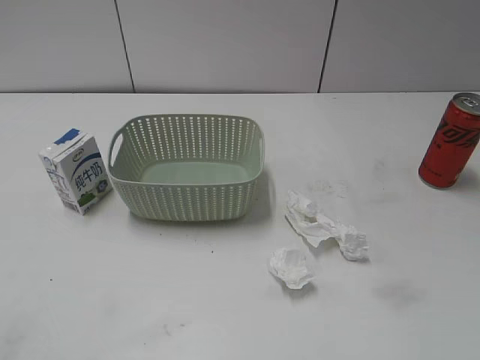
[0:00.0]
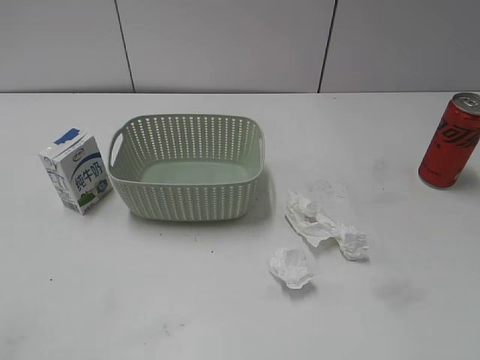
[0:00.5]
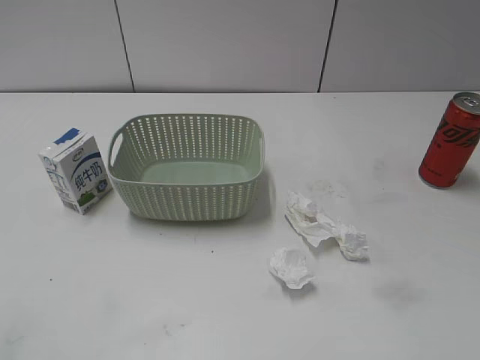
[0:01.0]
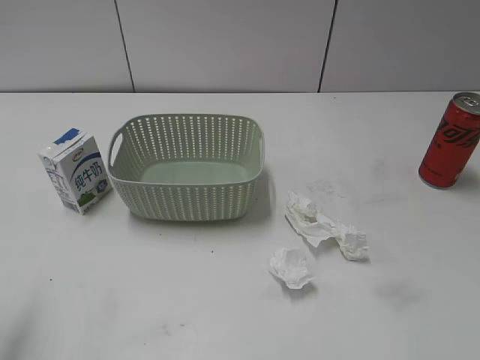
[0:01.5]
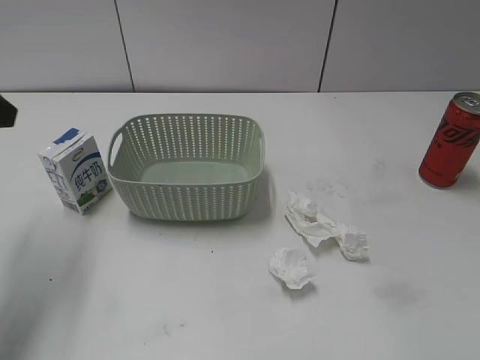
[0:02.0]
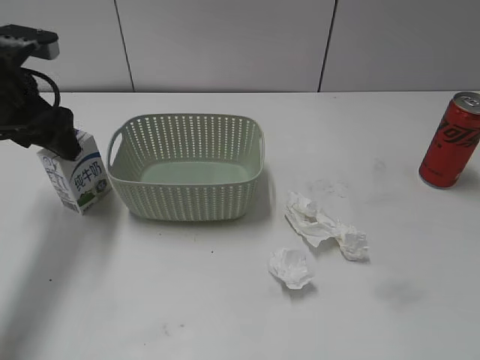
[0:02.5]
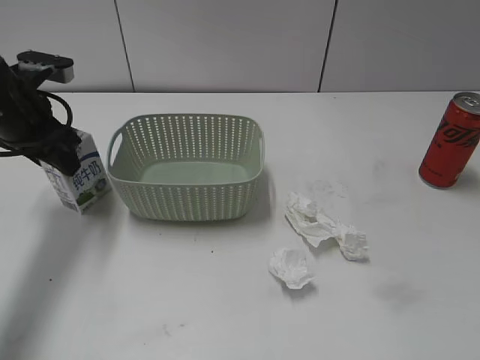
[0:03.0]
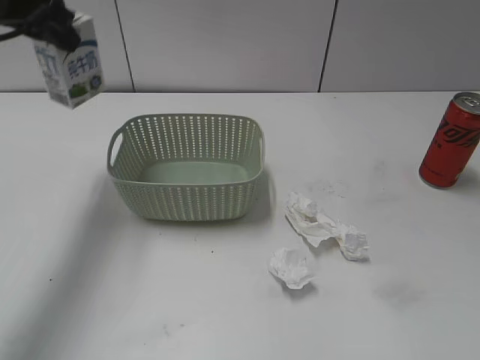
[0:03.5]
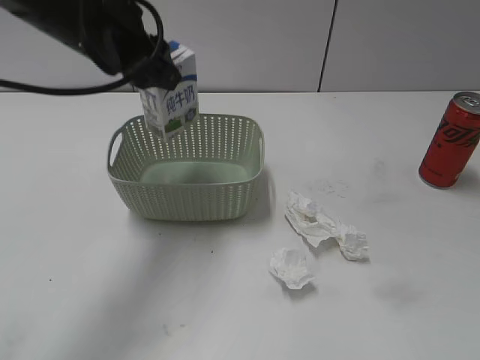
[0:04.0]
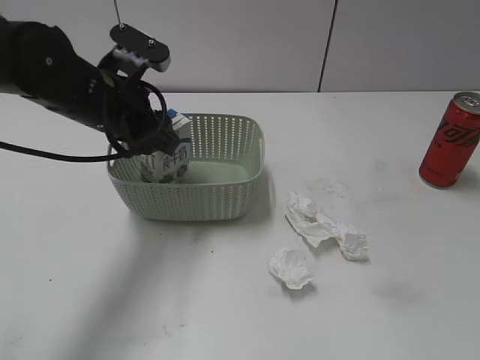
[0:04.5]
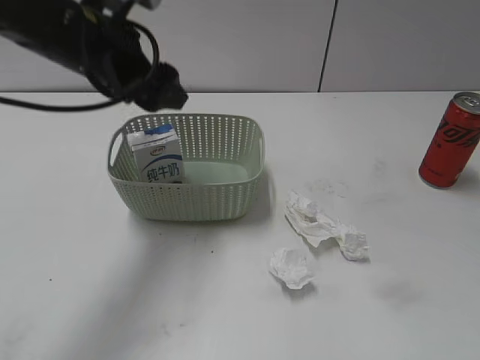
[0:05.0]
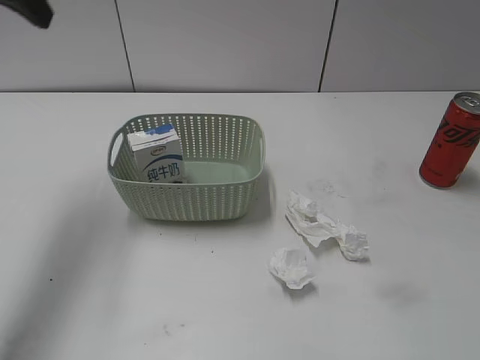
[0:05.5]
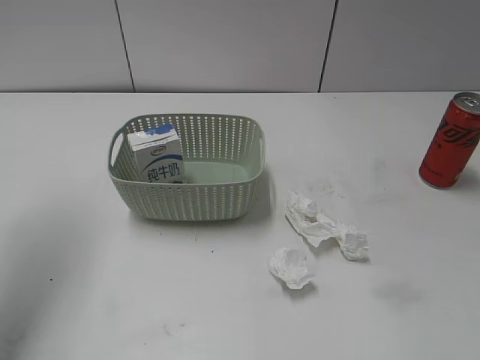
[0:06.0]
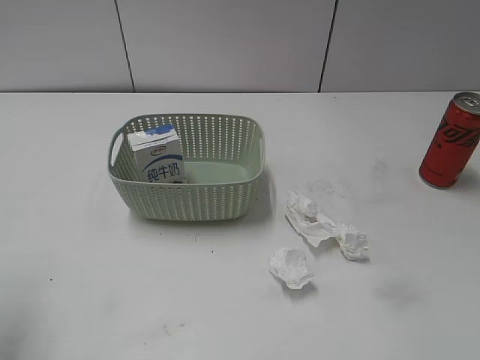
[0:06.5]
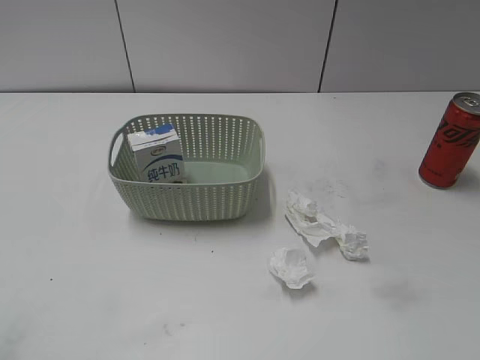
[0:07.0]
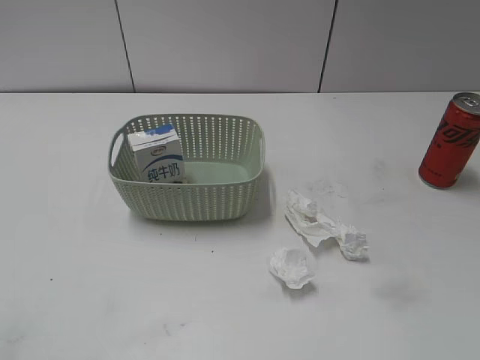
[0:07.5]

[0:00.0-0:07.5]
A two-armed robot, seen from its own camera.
Step, 0:02.0 to 0:03.0: Grasp the milk with left gripper.
Step, 0:03.5 to 0:05.0: Place the milk in the basket with left gripper.
0:02.0 to 0:04.0: The left gripper travels to the right and forward by roughly 15 cm, and closes up.
0:04.0 to 0:05.5: The left gripper goes about 15 cm to the left and upward, and opens its fingers.
0:05.5 to 0:07.5: The left gripper shifts some 30 cm backward.

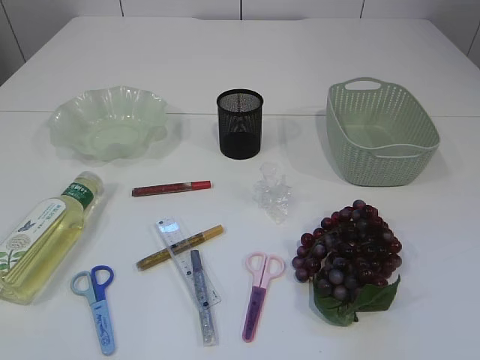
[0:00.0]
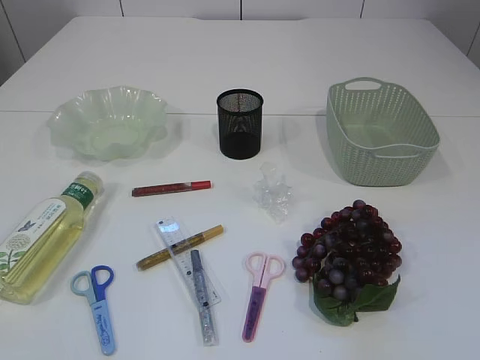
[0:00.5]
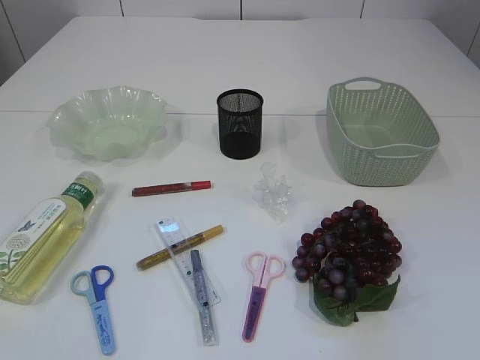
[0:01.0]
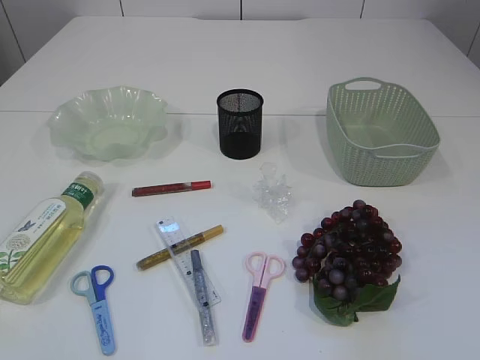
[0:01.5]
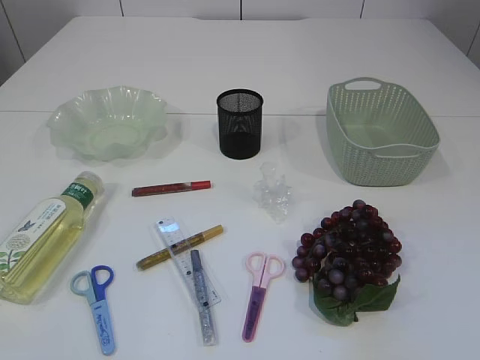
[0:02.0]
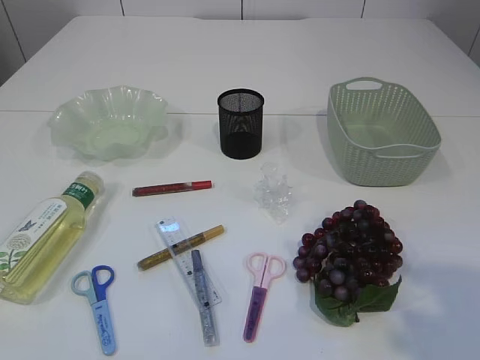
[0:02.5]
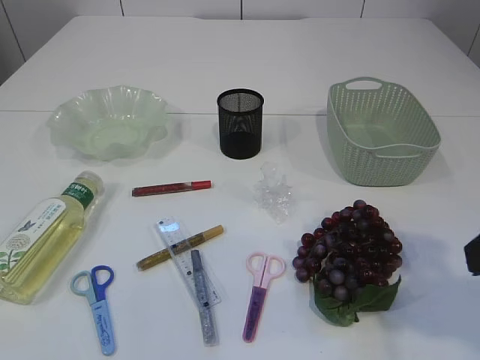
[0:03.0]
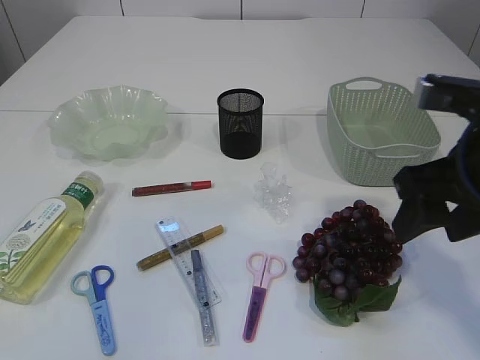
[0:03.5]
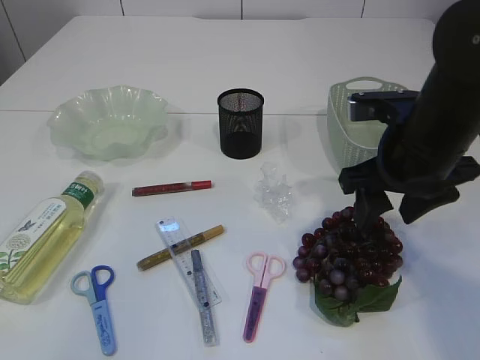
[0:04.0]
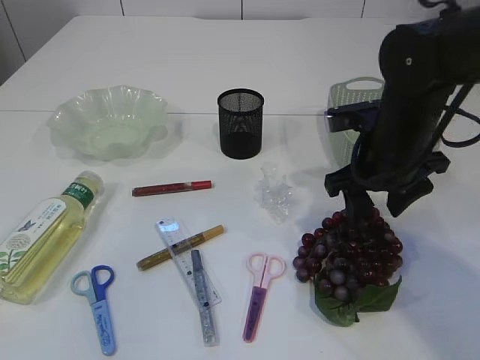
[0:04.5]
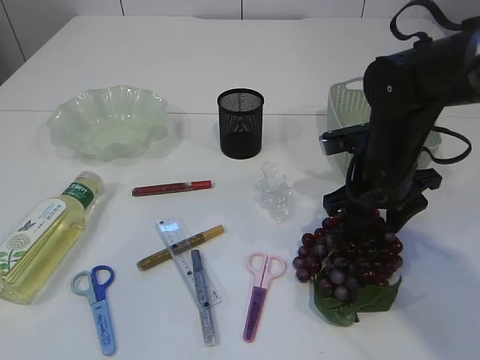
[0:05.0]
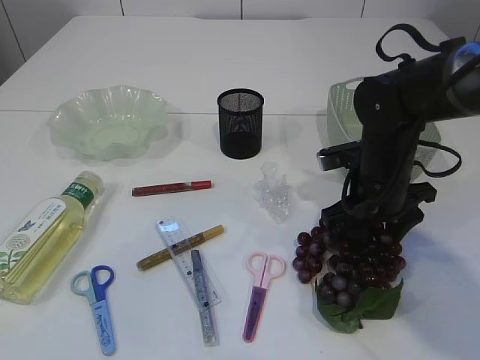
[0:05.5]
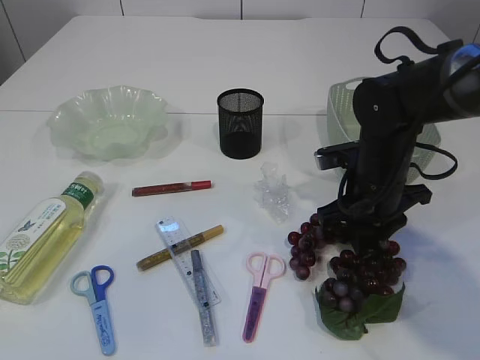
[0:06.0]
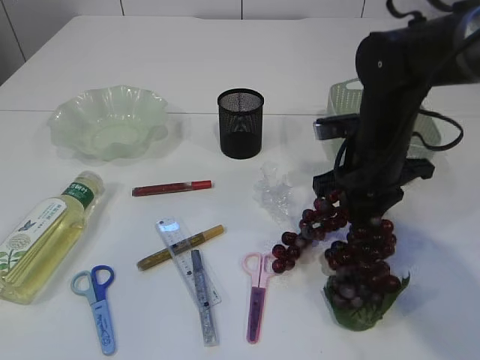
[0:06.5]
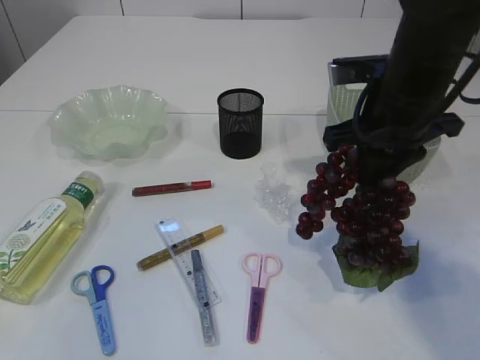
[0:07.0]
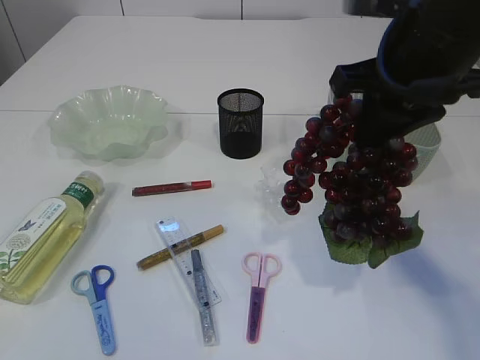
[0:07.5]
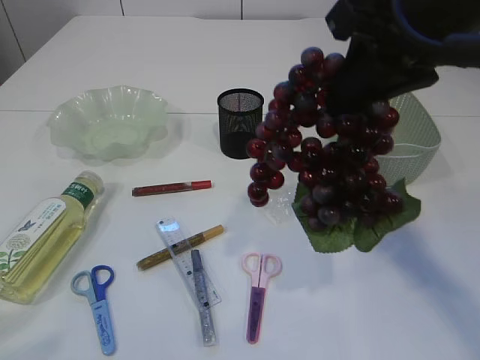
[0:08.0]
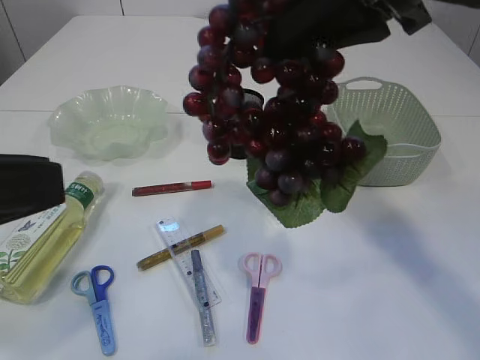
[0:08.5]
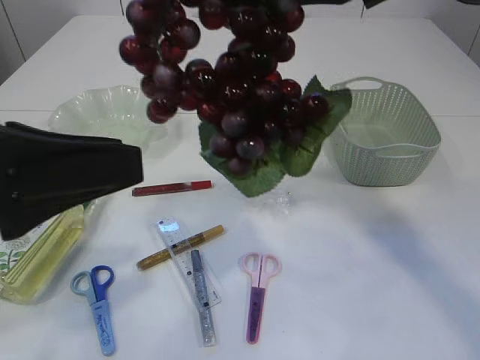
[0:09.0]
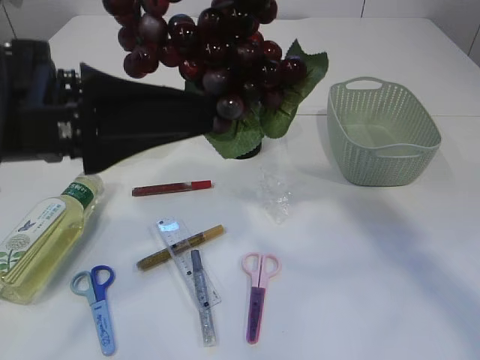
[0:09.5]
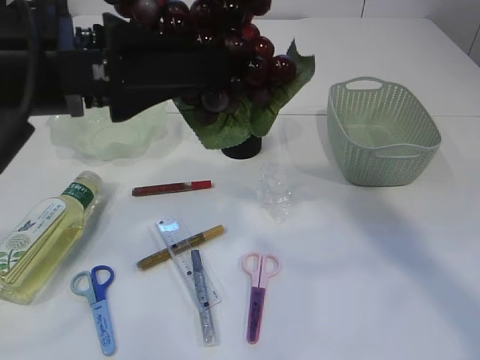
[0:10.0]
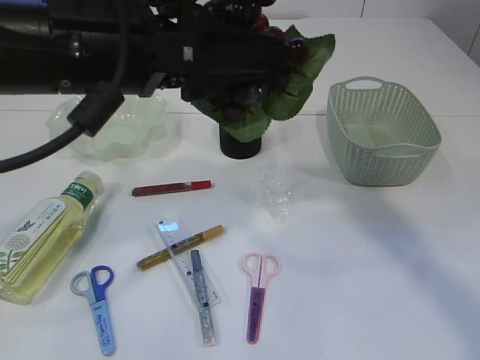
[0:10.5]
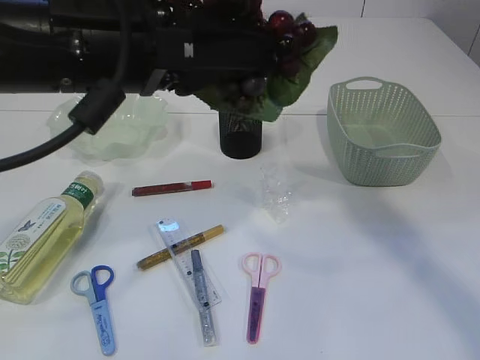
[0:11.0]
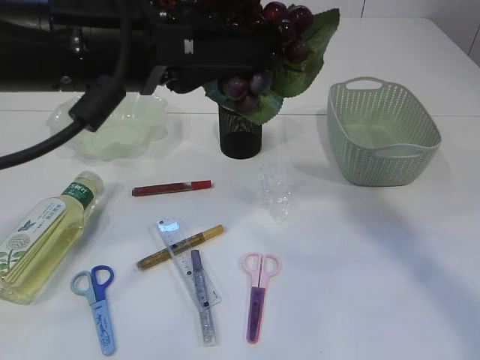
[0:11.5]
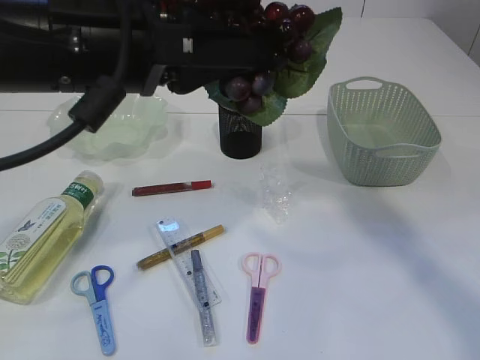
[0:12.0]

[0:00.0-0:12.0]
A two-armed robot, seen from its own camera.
Step, 0:00.0 to 0:07.5: Pick up the grapes.
0:02.0 to 0:04.0: The right gripper goes roughly 30 cm forward.
0:04.0 to 0:06.0: The right gripper travels downward and forward by about 10 cm, and closes.
0:06.0 to 0:08.0: The left gripper goes some 10 cm forward and to the right. Meanwhile the right gripper goes approximately 25 cm upward.
0:08.0 to 0:10.0: The right gripper goes roughly 5 cm upward, while the left gripper goes roughly 20 cm forward and to the right.
0:10.0 to 0:12.0: The left gripper closes its fingers.

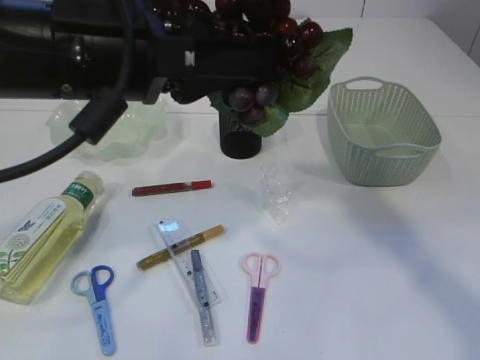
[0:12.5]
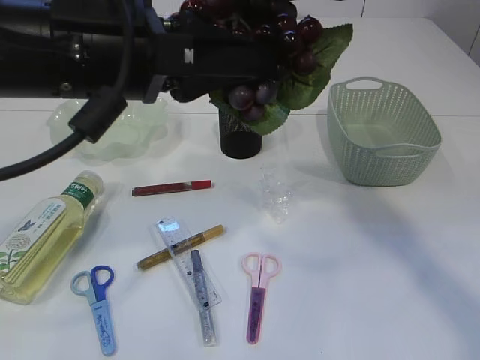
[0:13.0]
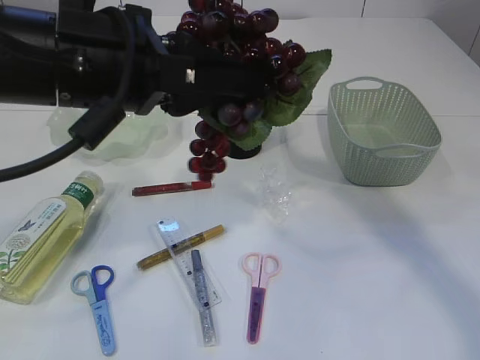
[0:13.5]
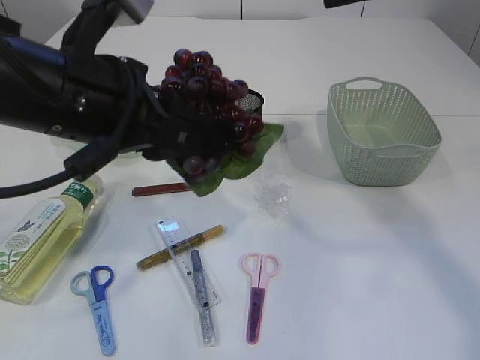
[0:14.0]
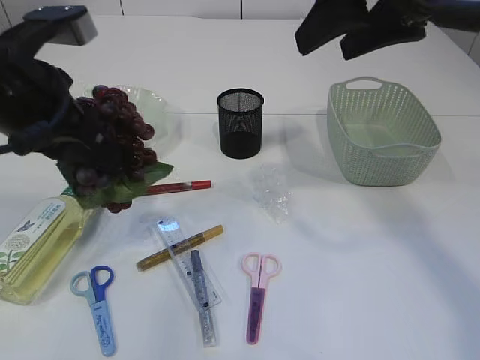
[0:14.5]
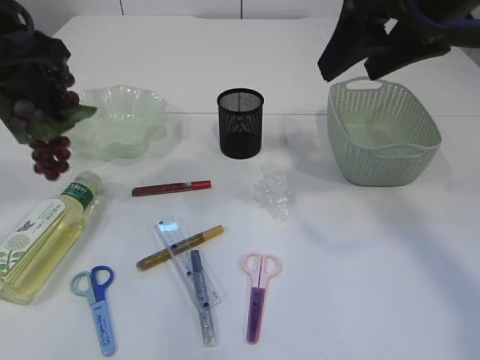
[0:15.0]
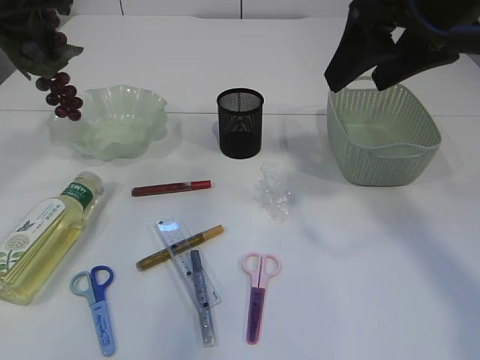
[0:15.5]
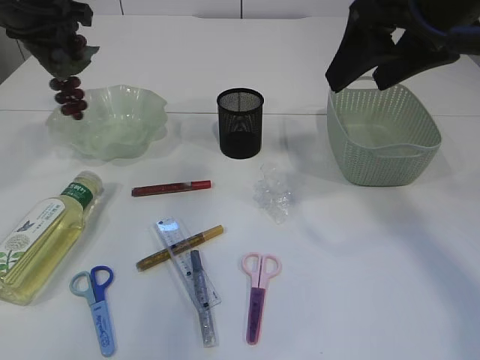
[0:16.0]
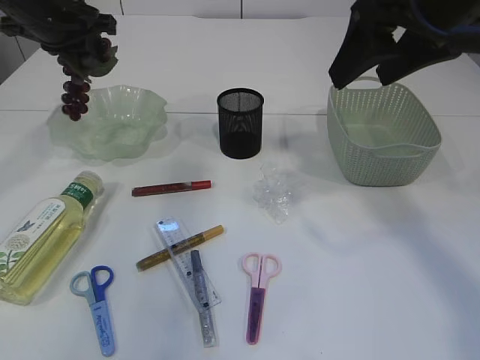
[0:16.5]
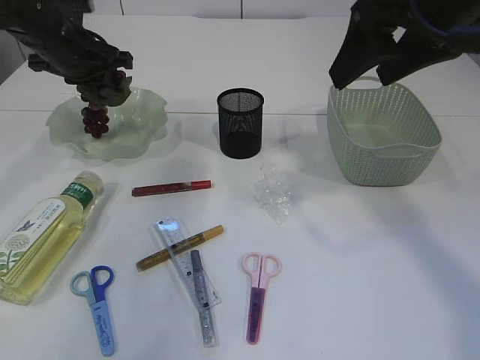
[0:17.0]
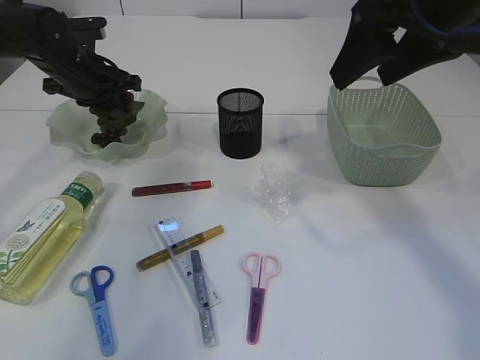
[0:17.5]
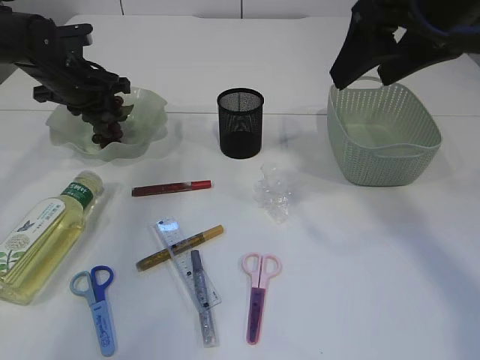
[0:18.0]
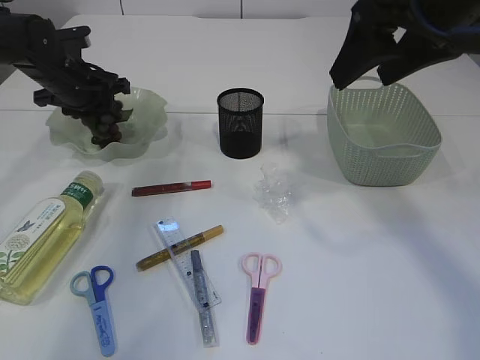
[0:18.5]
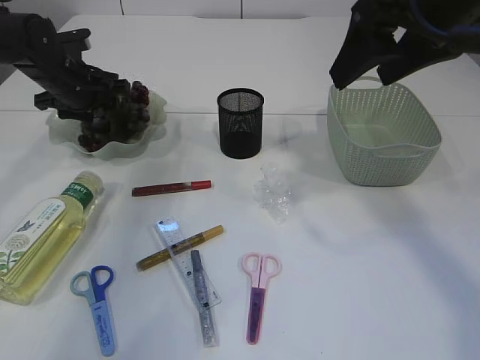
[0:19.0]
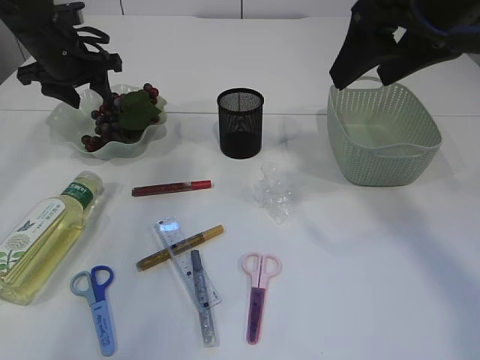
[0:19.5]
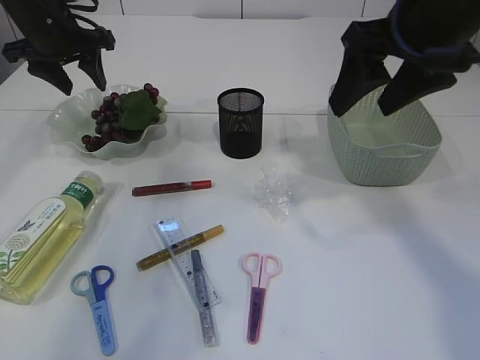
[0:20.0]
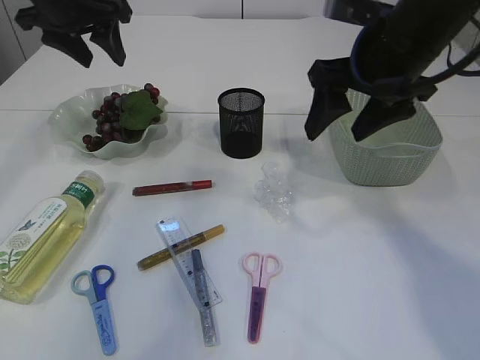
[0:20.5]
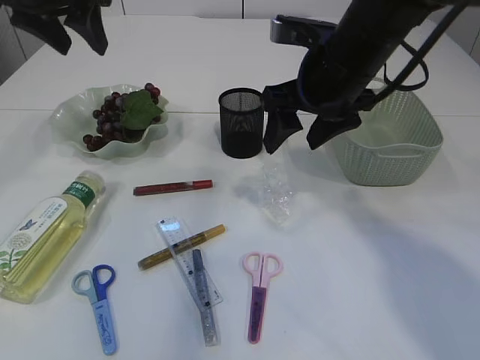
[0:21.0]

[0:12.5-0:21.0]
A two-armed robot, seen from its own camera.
Step, 0:14.5 to 0:20.0: Place the grapes in the plate.
0:12.5 to 0:14.5: The left gripper is displaced to the left by about 10 cm. Meanwhile the right gripper is displaced to the right by some 5 cm.
0:14.5 to 0:16.5: The left gripper is displaced forward by about 20 cm.
0:16.5 to 0:19.0: The left gripper shifts some 10 cm downward, and opens.
0:19.0 to 0:21.0: The left gripper goes about 20 cm upward and backward; the right gripper goes approximately 15 cm downward, to the left and forward.
